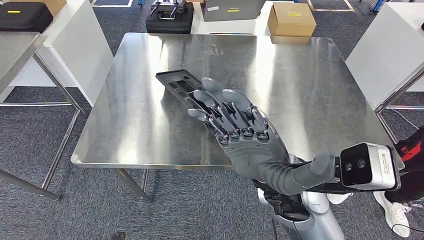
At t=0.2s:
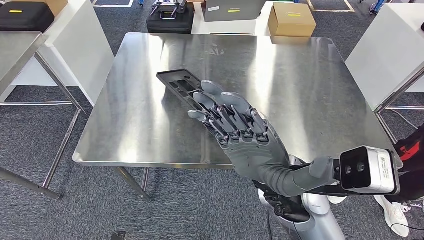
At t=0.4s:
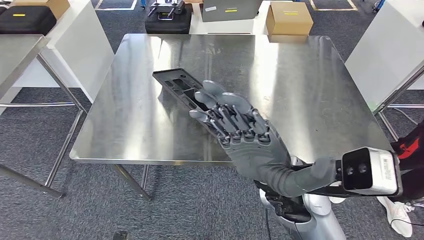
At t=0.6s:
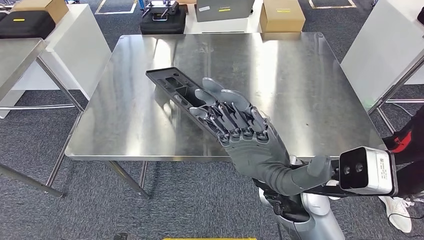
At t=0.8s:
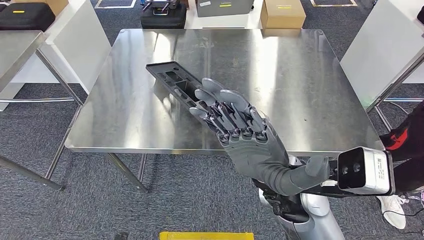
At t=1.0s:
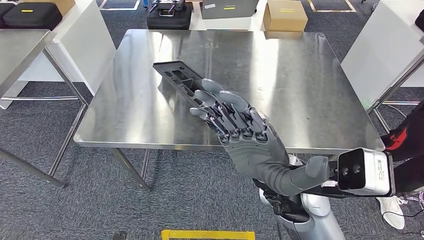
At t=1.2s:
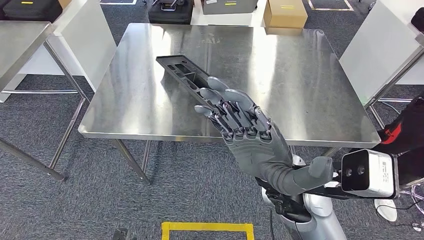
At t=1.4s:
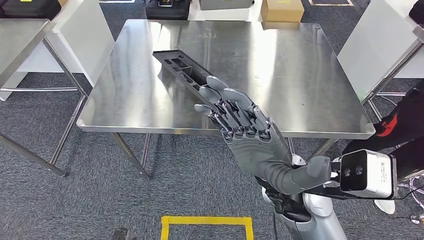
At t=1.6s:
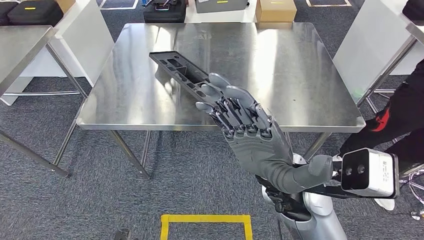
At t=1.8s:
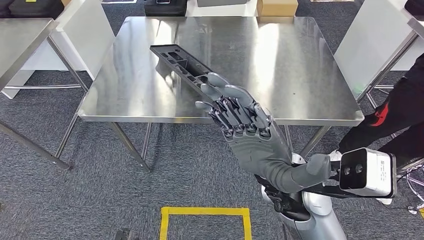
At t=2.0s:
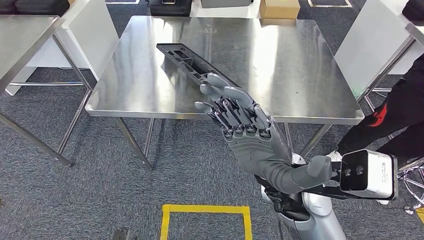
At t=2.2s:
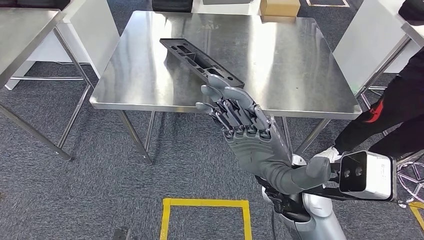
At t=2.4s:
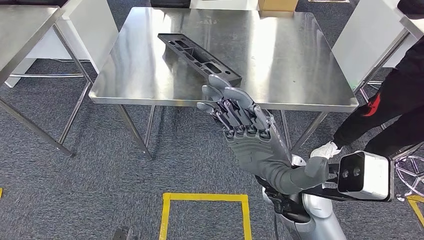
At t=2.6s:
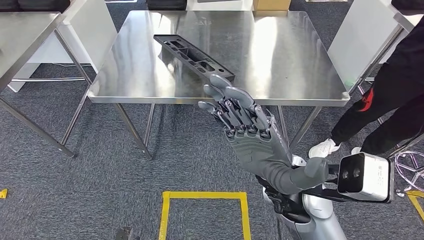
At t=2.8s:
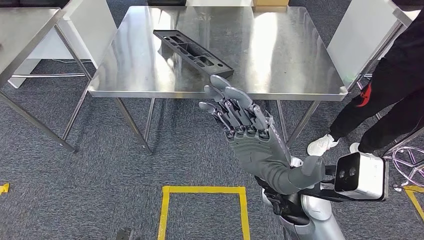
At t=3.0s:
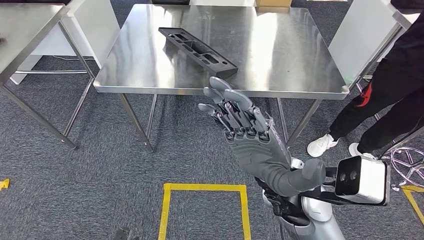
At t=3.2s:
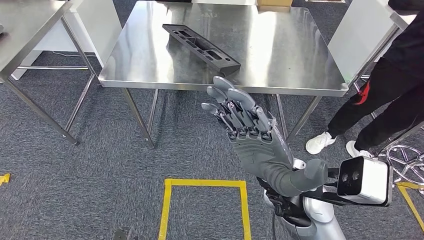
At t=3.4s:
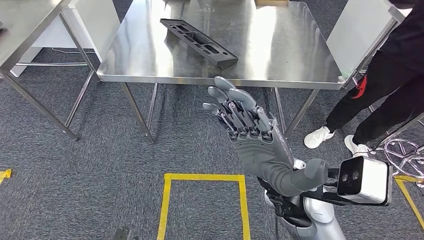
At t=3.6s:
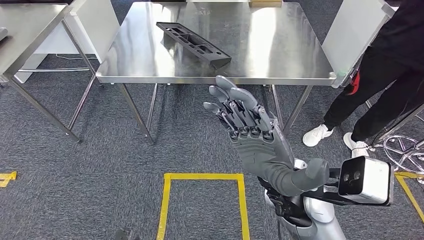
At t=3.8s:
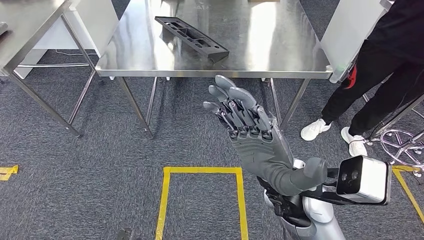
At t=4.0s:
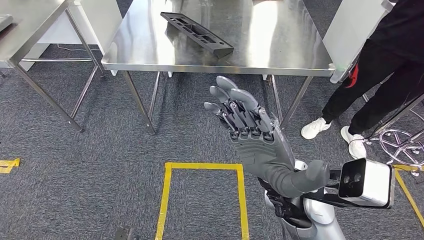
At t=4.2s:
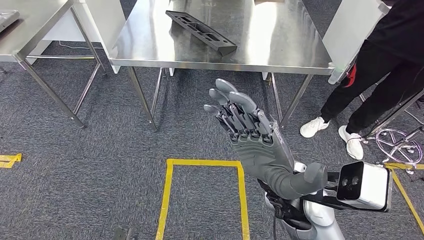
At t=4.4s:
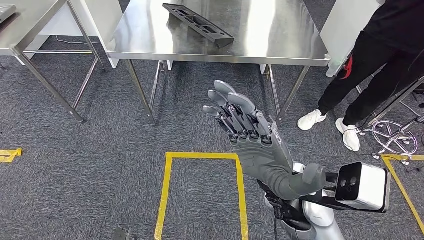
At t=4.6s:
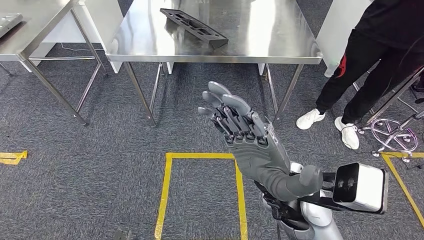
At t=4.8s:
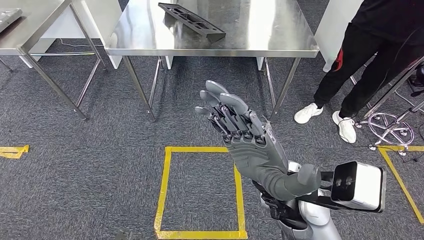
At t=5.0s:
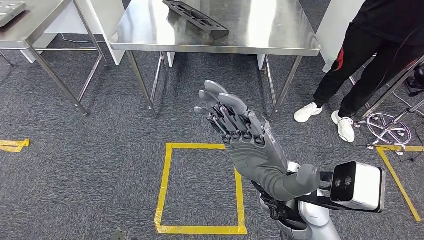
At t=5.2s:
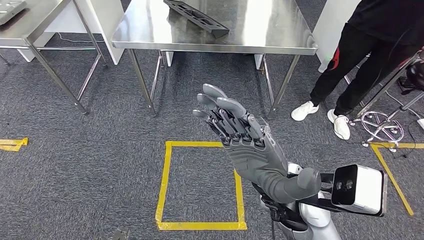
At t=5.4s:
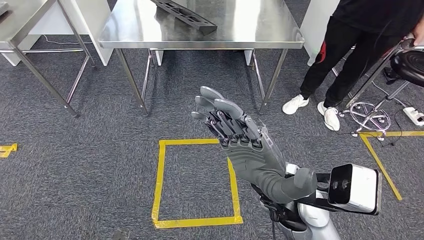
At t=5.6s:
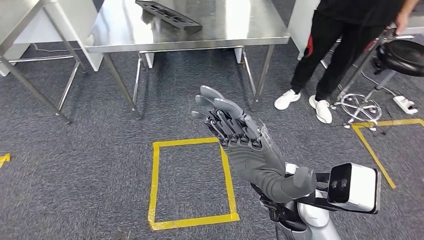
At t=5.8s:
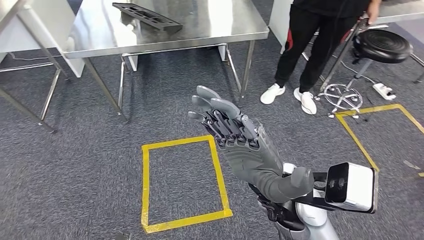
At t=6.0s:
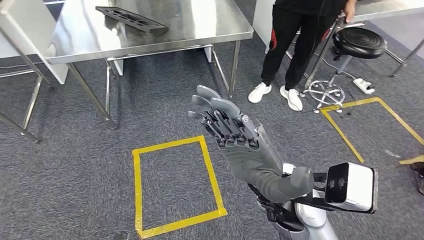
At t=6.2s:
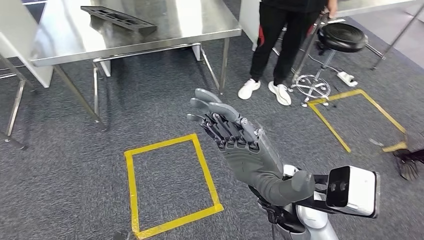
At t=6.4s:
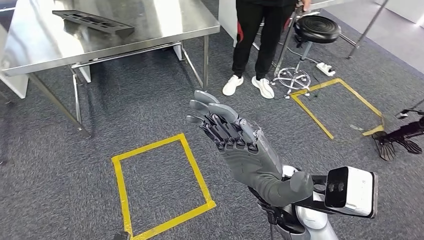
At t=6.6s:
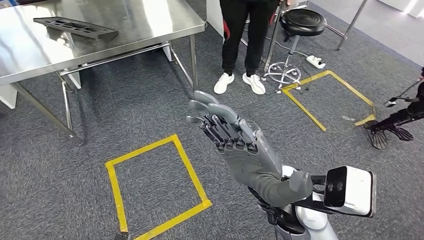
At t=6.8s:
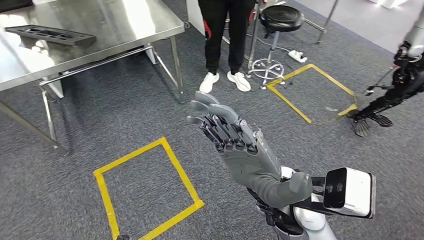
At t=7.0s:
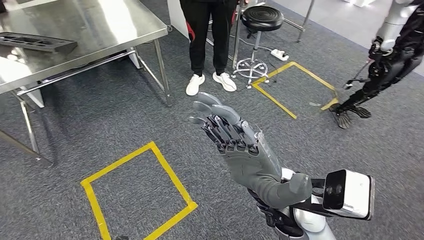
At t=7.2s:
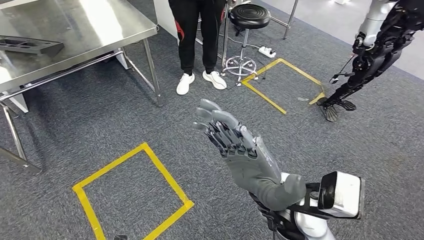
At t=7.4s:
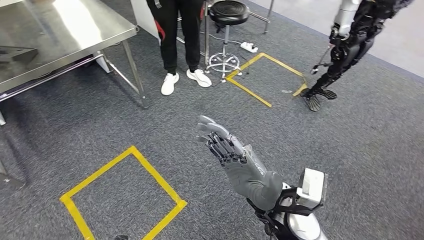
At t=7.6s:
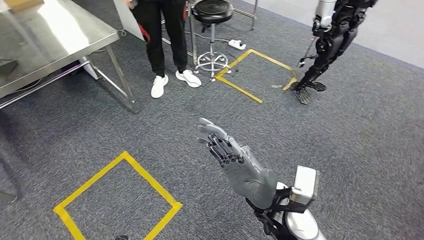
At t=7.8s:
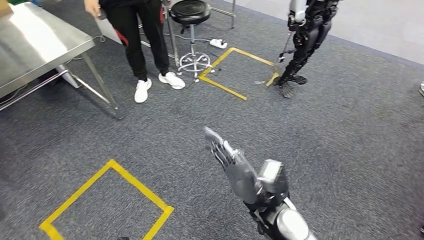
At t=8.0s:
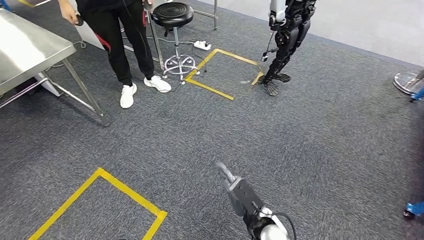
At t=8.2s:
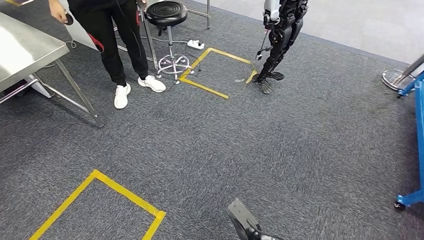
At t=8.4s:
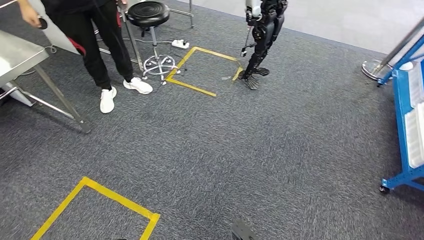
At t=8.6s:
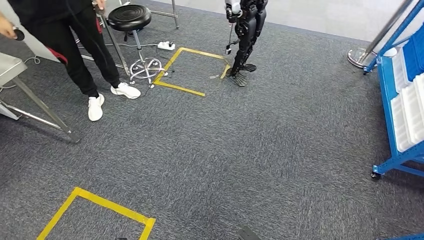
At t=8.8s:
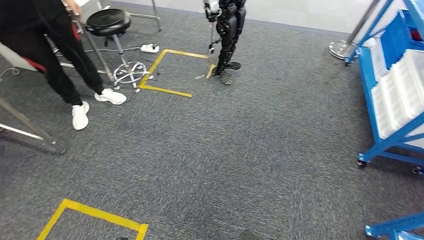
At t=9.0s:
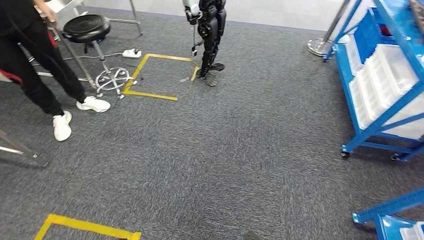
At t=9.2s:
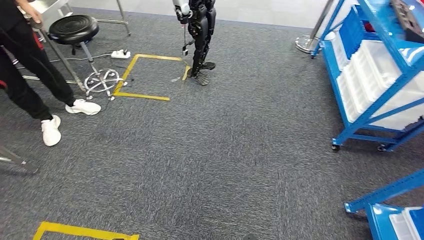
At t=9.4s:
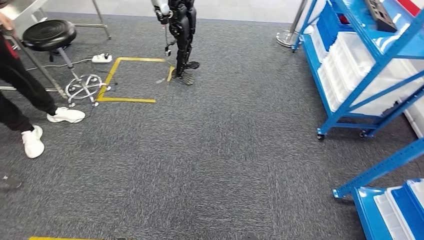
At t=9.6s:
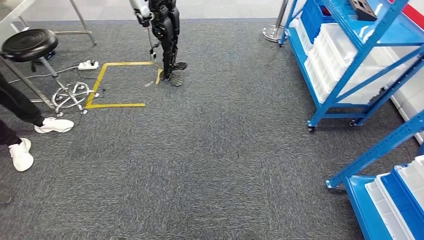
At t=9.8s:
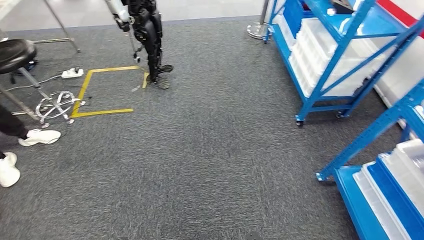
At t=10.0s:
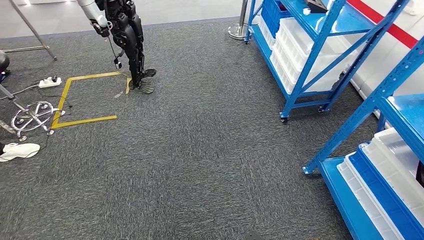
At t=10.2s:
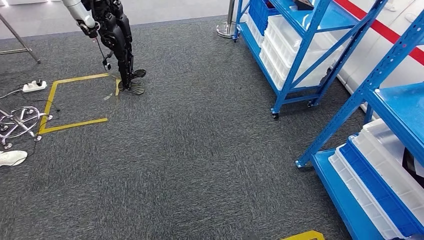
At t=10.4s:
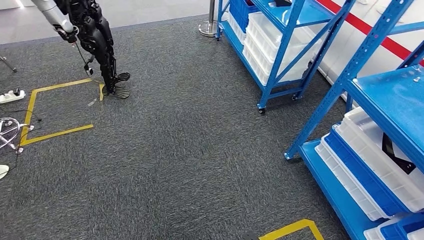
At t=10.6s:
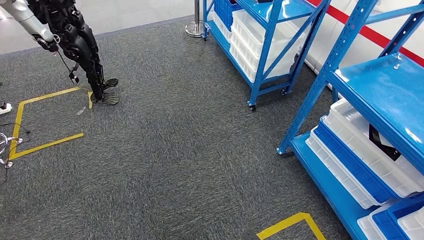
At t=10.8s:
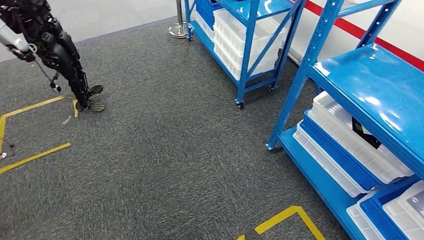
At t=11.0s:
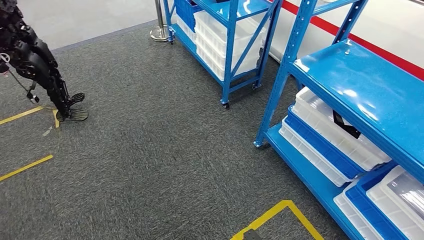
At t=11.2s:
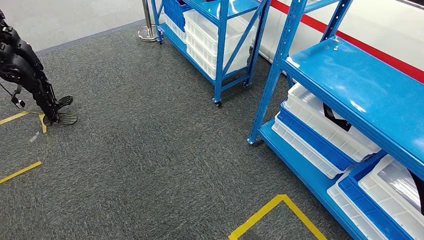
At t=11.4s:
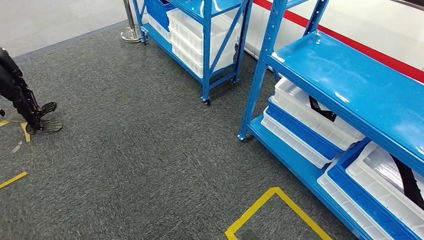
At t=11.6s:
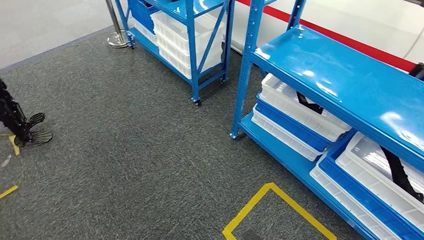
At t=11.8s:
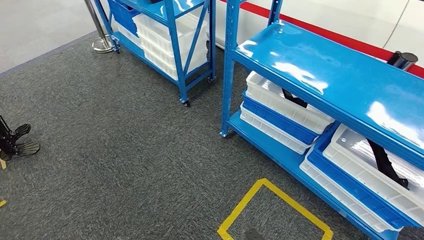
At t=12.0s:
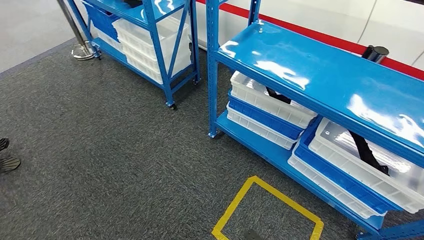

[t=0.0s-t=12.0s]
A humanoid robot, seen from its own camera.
Step, t=0.0s to t=6.0s: Insert the large material into the corresponding slot on the workbench.

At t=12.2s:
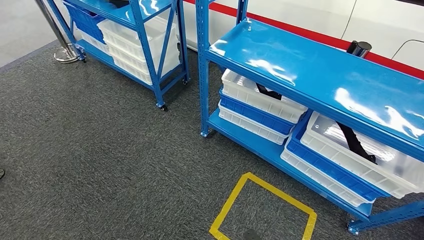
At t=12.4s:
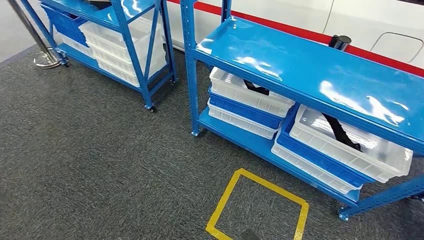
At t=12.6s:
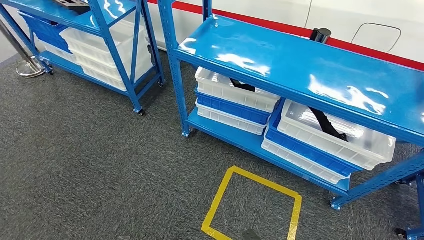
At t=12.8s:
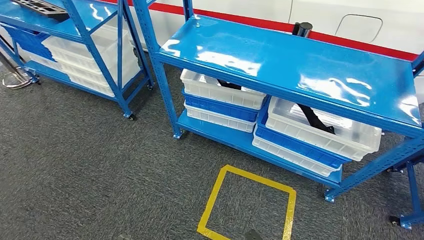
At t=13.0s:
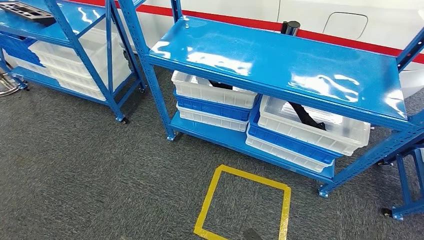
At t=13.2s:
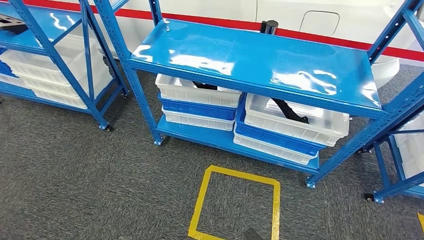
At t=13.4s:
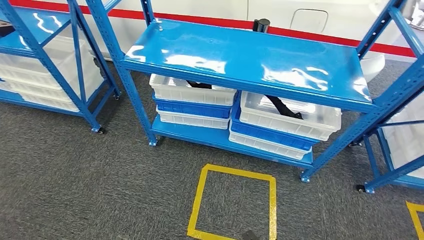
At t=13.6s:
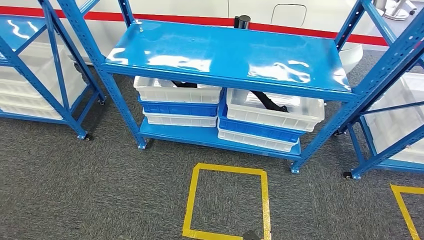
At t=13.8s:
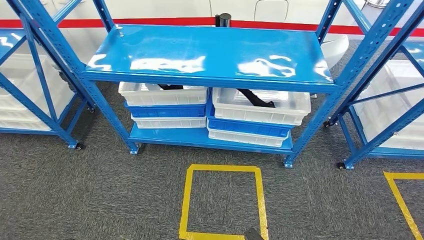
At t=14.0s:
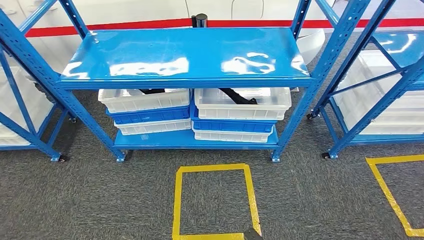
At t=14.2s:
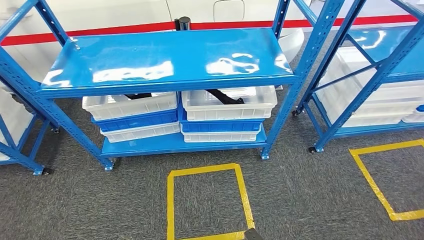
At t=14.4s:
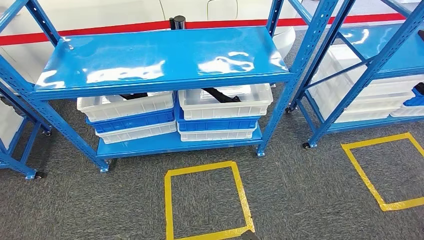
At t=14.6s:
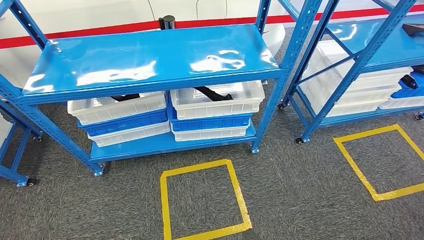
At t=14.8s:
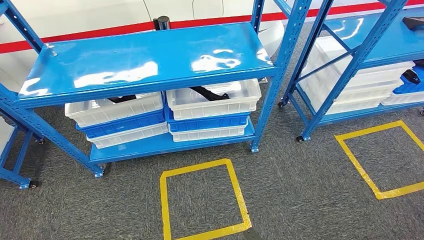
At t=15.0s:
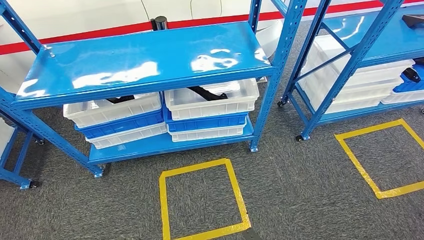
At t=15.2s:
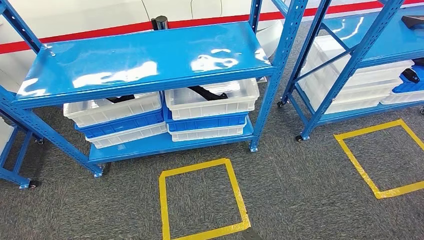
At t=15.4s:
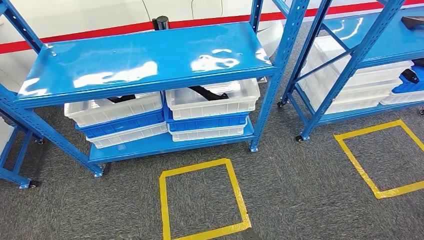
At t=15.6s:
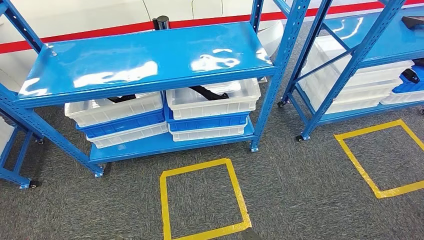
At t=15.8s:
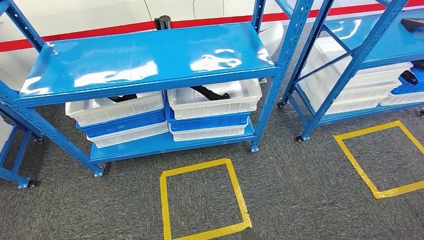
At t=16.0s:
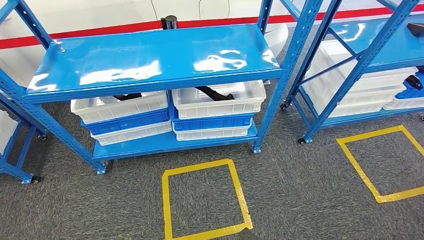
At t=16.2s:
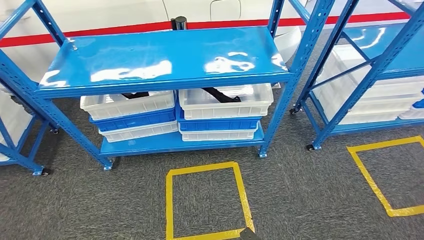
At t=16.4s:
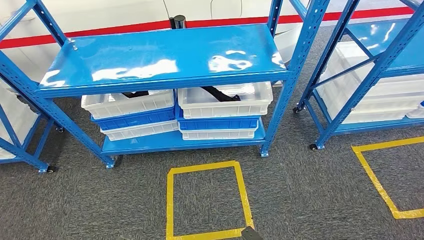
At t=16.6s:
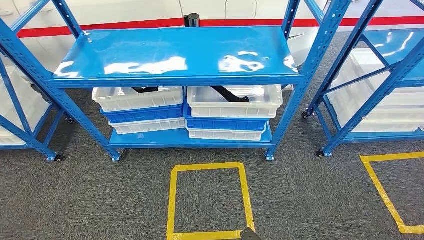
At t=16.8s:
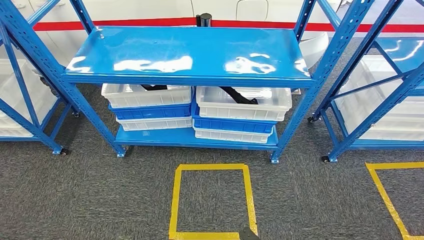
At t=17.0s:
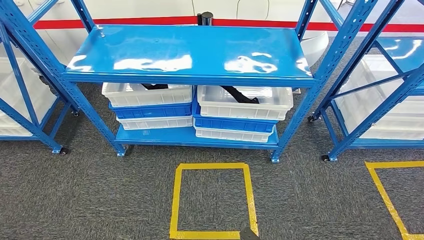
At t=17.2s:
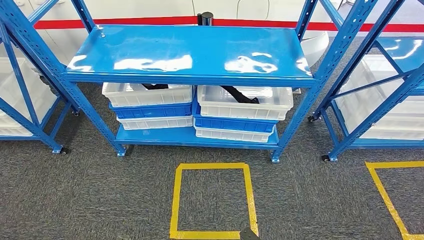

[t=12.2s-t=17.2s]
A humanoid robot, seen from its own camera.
Step, t=12.2s to t=17.2s: Move to the initial position of the shelf.
